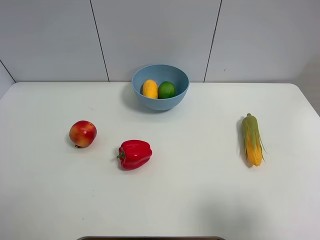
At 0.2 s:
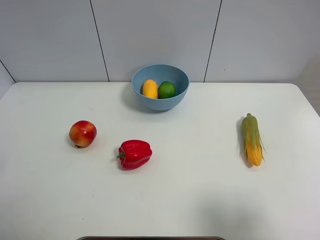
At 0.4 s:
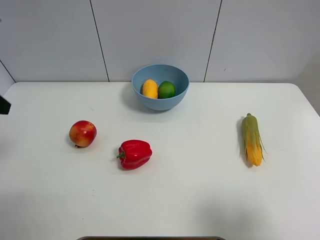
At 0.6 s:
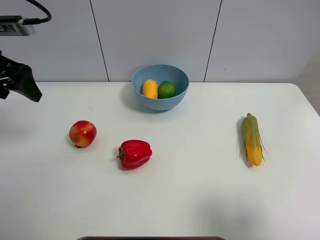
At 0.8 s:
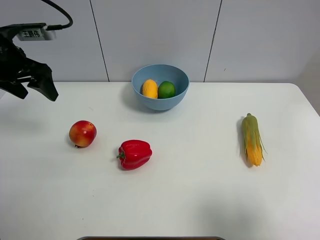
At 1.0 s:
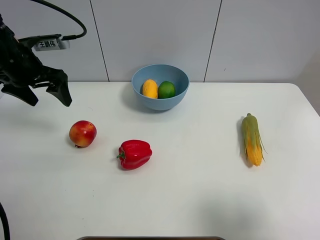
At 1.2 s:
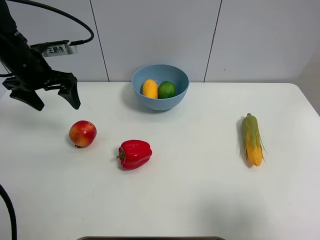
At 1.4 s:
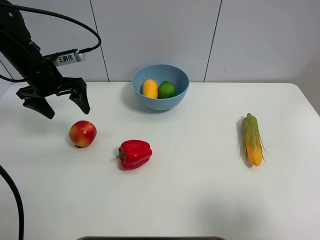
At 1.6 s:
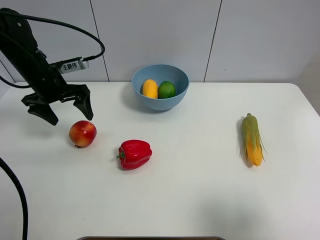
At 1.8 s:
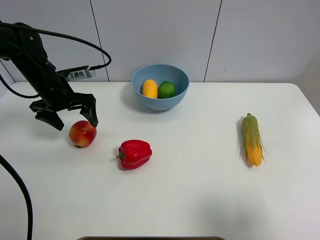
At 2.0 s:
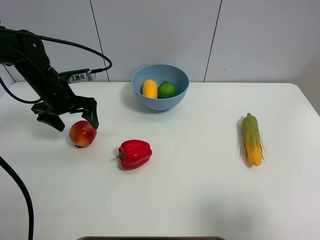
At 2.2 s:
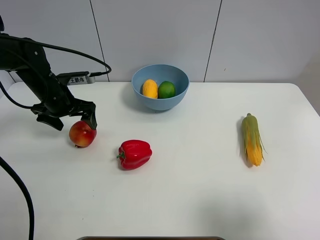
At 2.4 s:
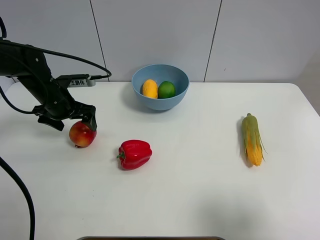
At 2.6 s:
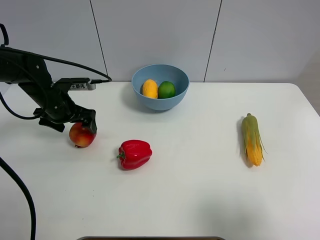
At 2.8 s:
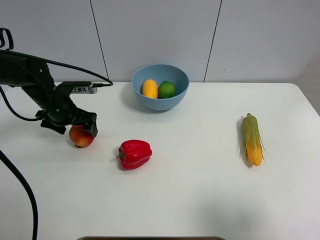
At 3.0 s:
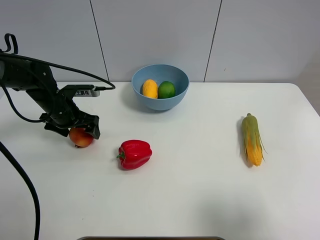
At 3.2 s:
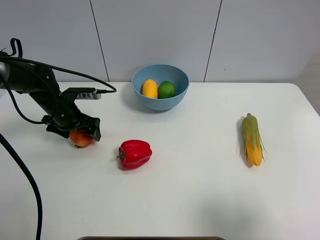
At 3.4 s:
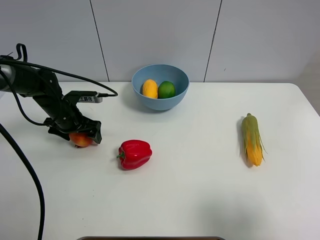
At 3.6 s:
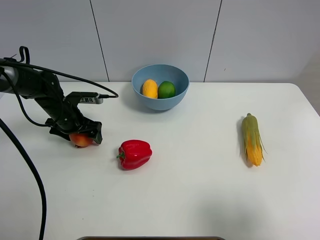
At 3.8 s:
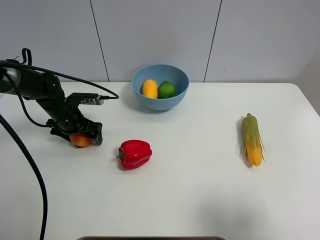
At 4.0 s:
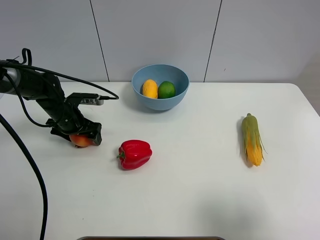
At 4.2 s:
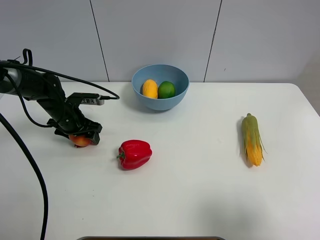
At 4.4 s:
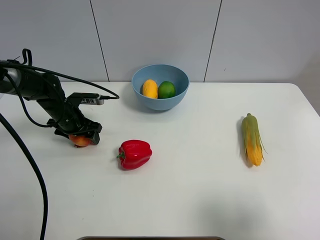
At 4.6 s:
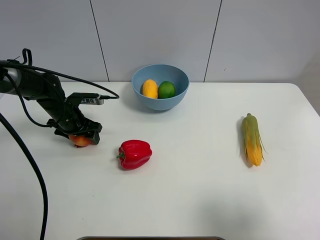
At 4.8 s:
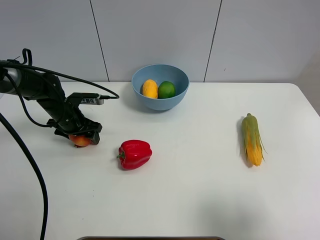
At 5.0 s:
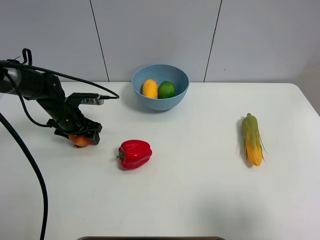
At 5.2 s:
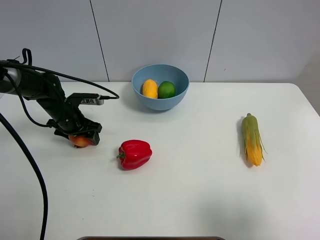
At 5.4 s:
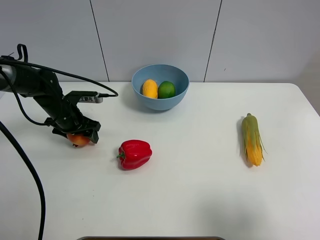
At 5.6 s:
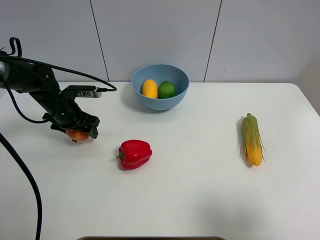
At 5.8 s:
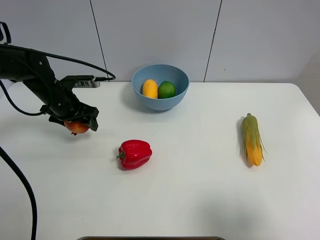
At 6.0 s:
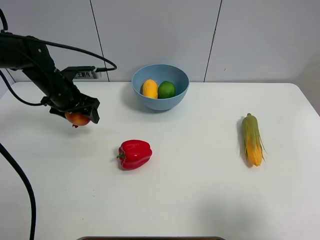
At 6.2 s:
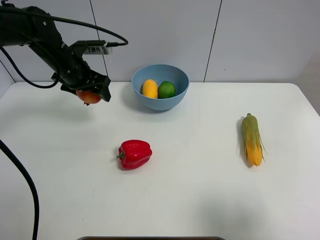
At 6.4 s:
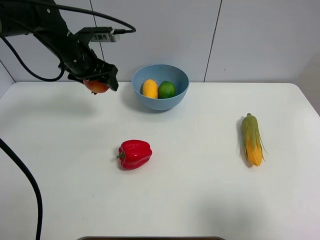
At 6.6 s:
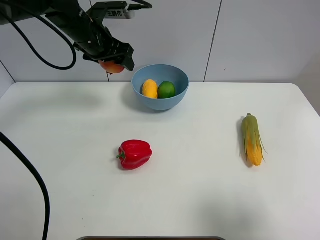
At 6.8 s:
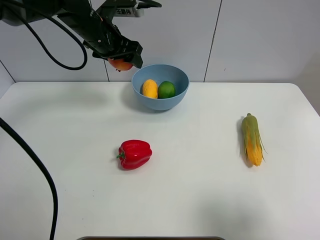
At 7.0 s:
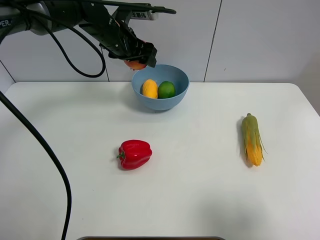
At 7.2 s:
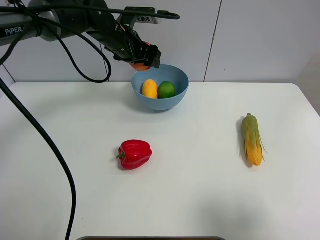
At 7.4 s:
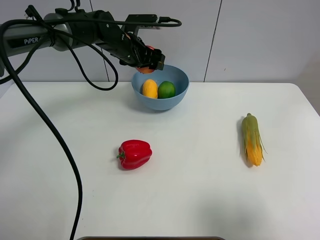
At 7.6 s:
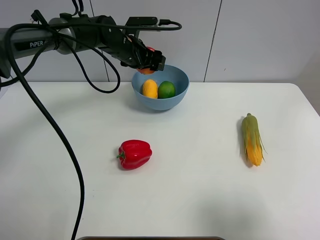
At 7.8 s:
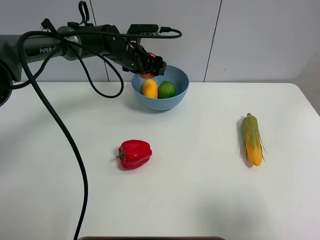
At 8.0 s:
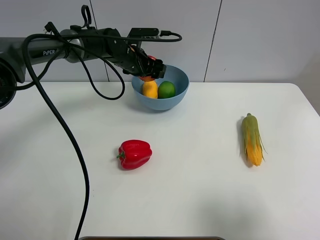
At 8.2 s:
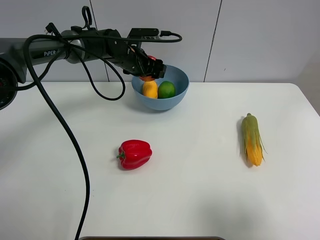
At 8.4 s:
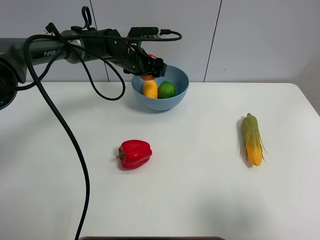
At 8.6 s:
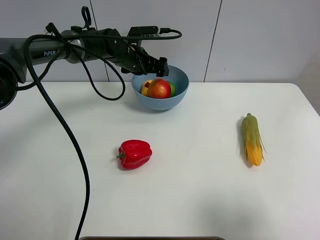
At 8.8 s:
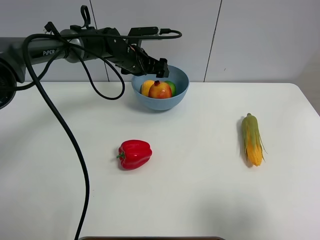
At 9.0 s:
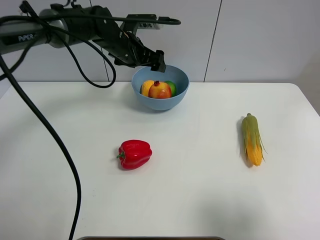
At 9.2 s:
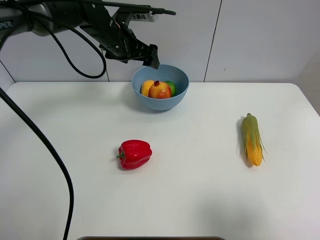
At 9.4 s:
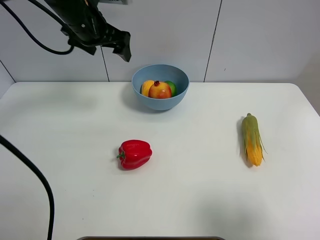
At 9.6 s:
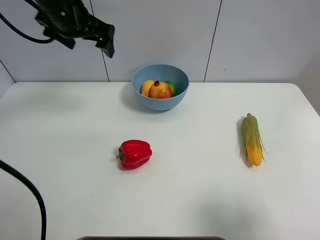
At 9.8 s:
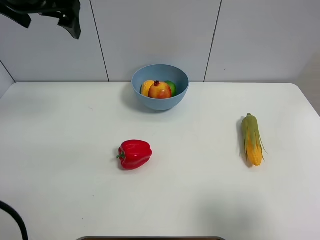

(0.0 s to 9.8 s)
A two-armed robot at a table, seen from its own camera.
Task of the whole recording: Put the three fruits on the table into a bowl.
Step, 0.0 s - 4.4 s: Grasp the pomegranate with left gripper.
Step, 4.6 s - 8.8 s: Place the pomegranate in the blue bowl with left gripper.
0.0 s - 1.4 s: The left gripper travels forward by approximately 30 cm, and opens up.
1.4 s - 2.8 s: The left gripper heads downward, covering approximately 10 cm.
2.8 s - 4.2 s: The left gripper closes.
4.2 s - 5.6 s: There are only small adjustments of the grippers.
5.6 s - 7.0 s: The left gripper shifts approximately 20 cm to the right, upward and forward.
7.0 s - 8.4 s: The left gripper goes roughly 5 cm downward.
8.4 s - 9.8 s: The left gripper goes roughly 30 cm upward, backward and to the left, and opens its fingers.

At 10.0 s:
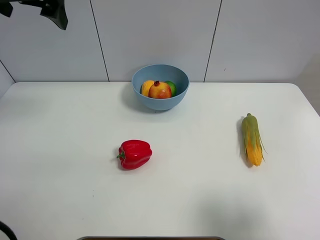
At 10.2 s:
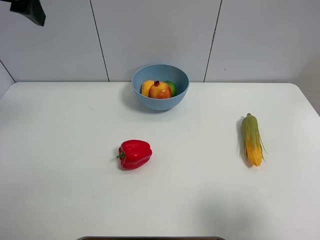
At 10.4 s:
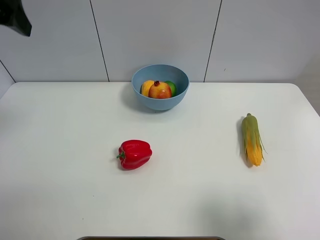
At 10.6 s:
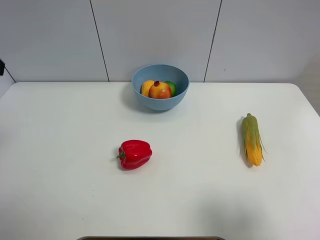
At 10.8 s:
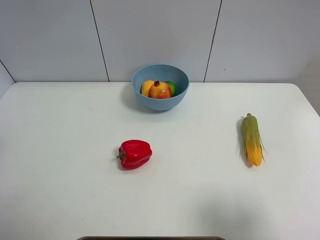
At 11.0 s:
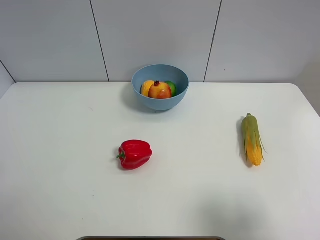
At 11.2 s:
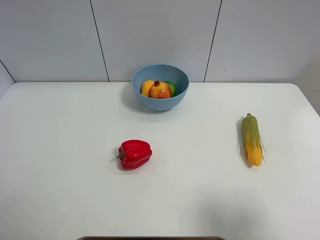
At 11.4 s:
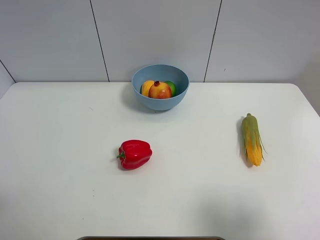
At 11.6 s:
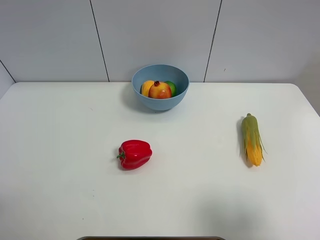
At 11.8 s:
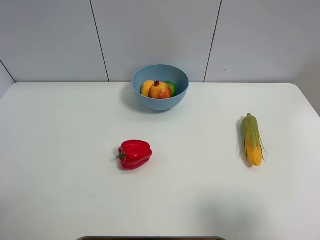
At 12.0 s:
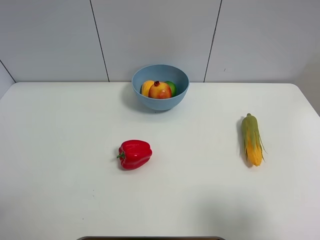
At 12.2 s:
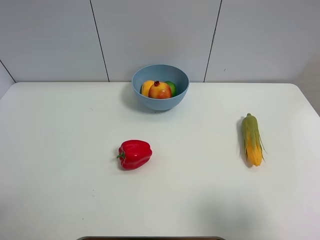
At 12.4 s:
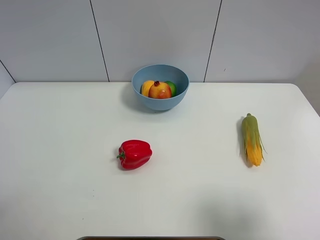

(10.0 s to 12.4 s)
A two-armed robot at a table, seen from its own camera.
Task of the whole recording: Put the three fruits on the table into a bowl.
10.0 s - 11.2 s: The left gripper shifts approximately 30 cm backward, downward and to the left.
